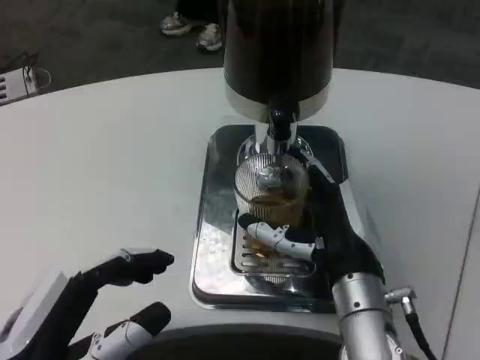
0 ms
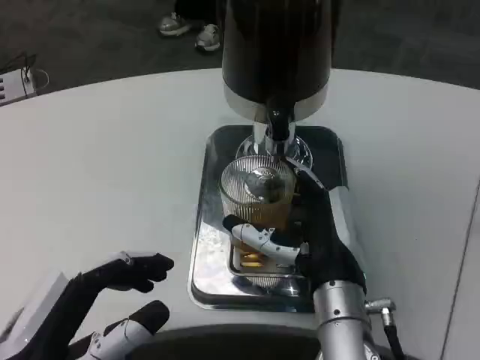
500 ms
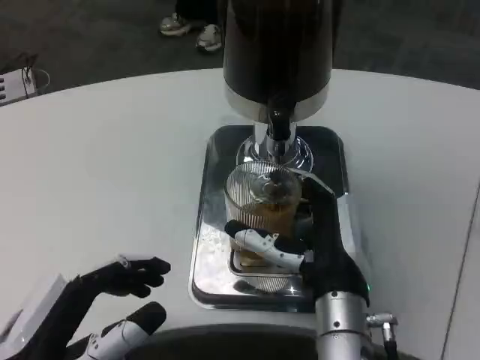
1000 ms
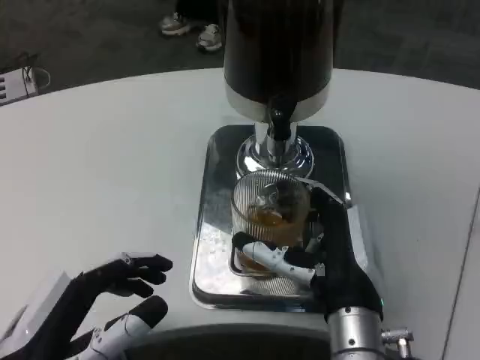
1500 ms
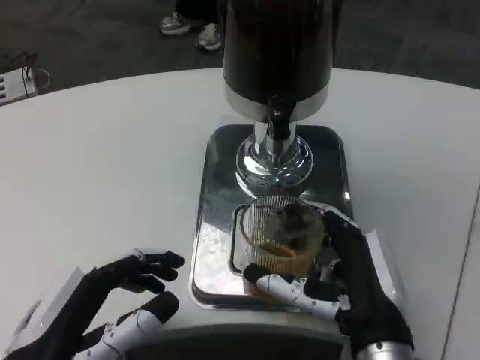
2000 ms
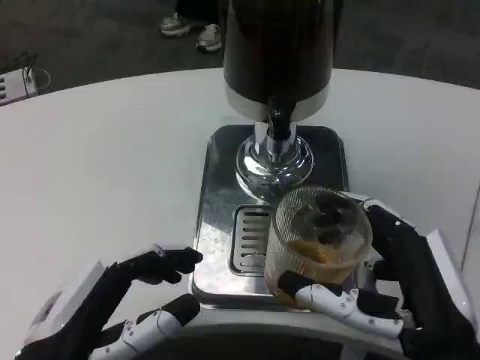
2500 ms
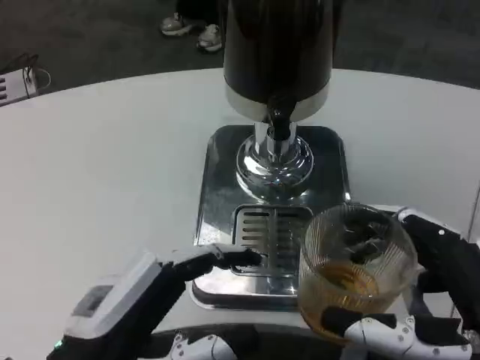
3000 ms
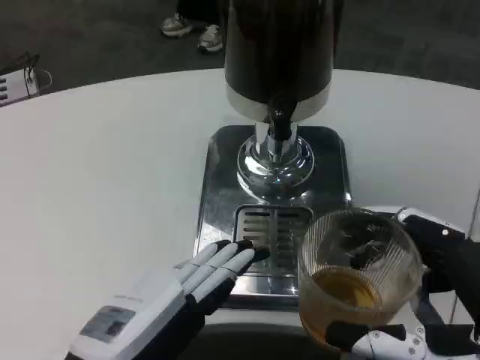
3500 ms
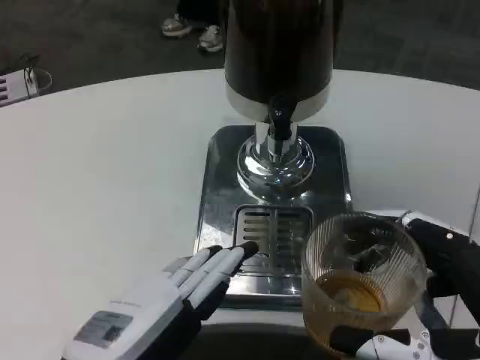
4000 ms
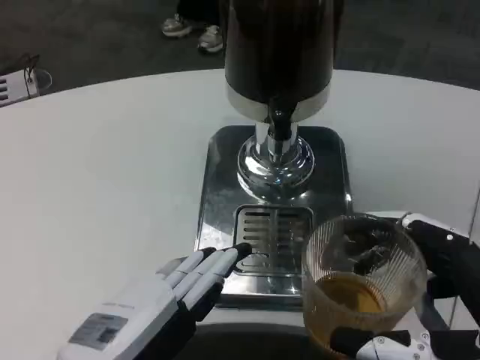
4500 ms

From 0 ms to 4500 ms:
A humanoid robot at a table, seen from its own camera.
Task of the whole recording: Grasp the cup under the faucet to collect the drink, then remove the cup.
From 0 ms to 2000 ms: The right hand heads backward, covering approximately 5 cm.
From 2000 ms to 4500 ms: The right hand travels to the right, backward and upward by roughly 15 cm; the left hand changes place by some 5 cm.

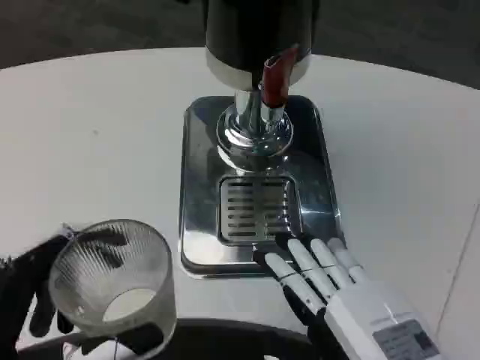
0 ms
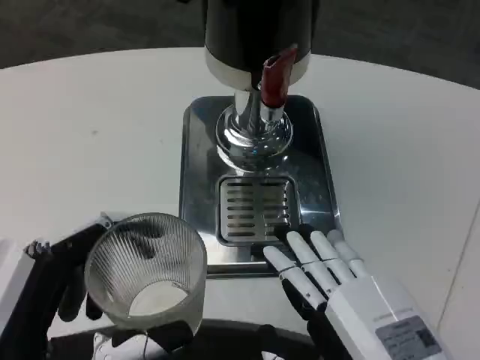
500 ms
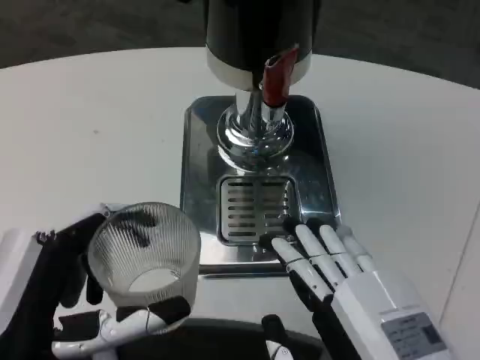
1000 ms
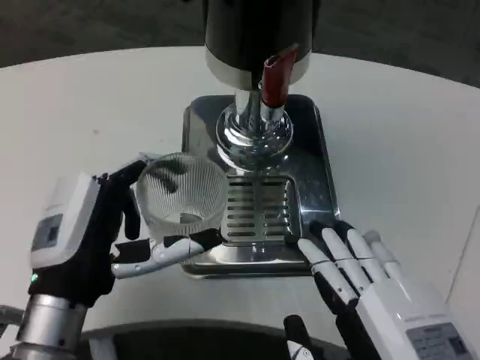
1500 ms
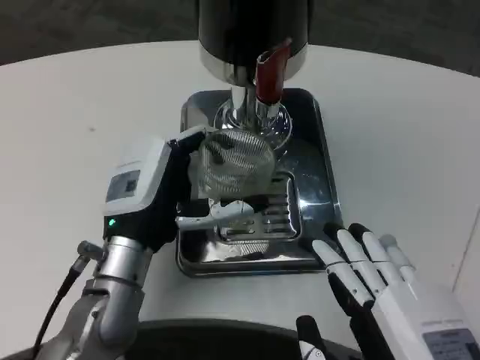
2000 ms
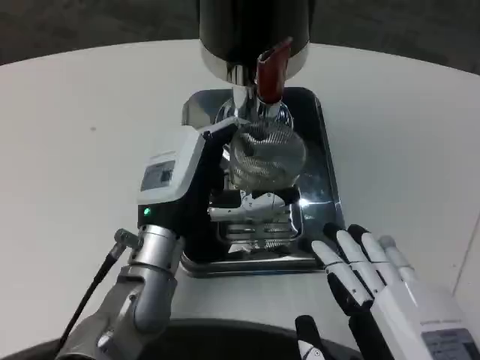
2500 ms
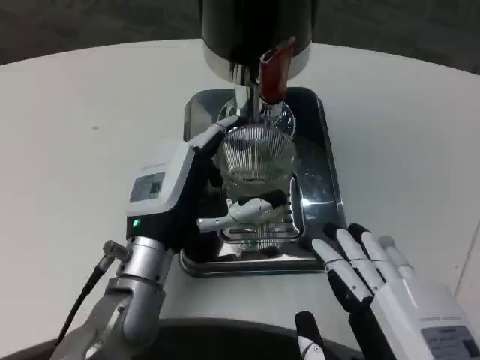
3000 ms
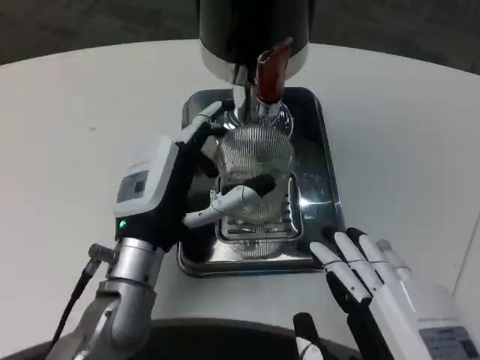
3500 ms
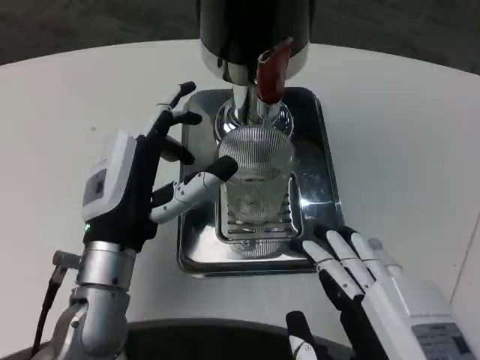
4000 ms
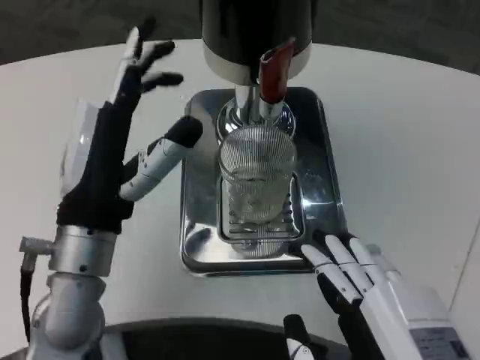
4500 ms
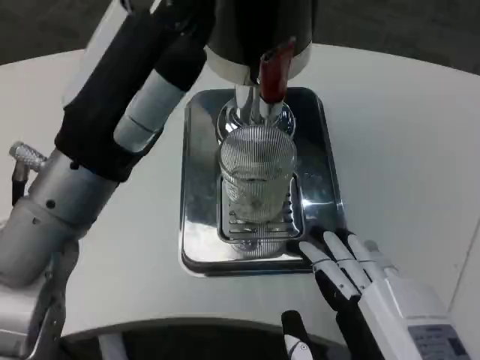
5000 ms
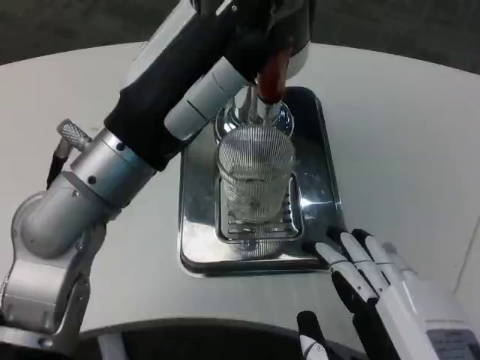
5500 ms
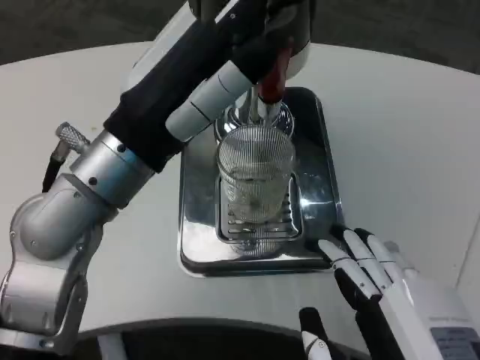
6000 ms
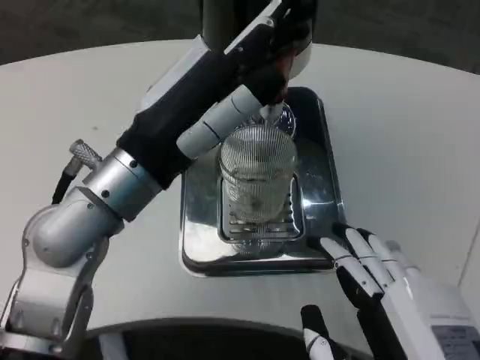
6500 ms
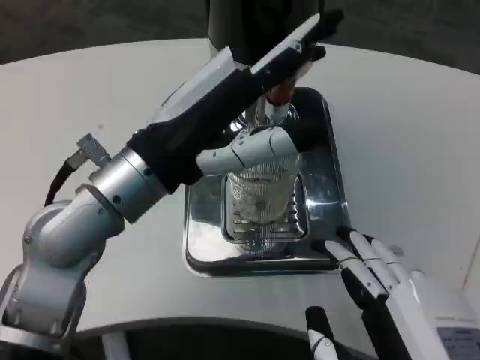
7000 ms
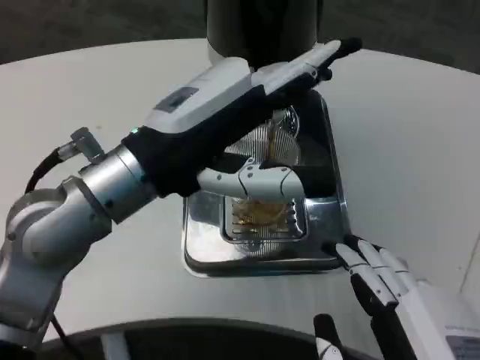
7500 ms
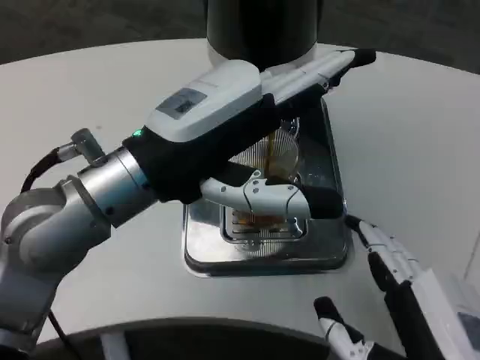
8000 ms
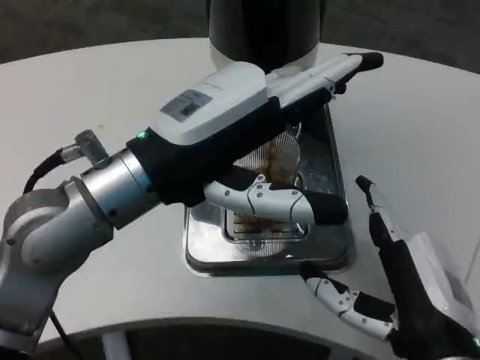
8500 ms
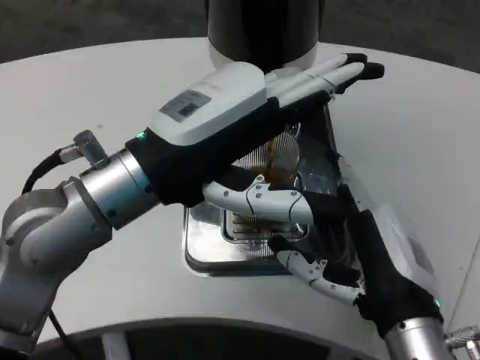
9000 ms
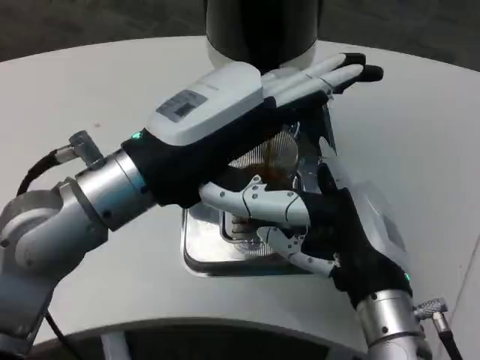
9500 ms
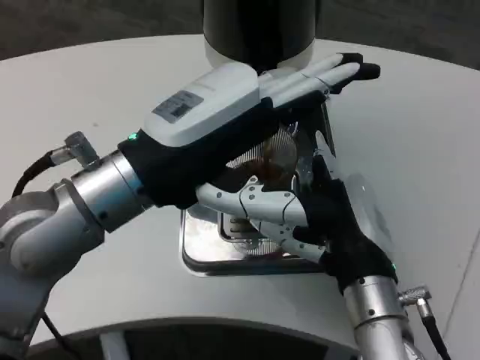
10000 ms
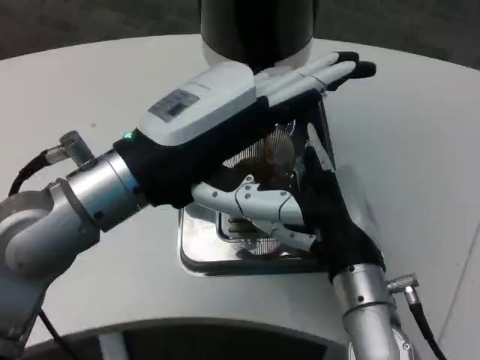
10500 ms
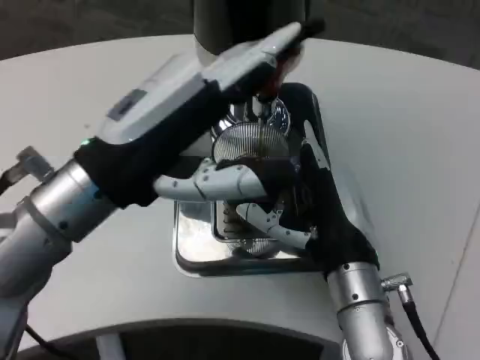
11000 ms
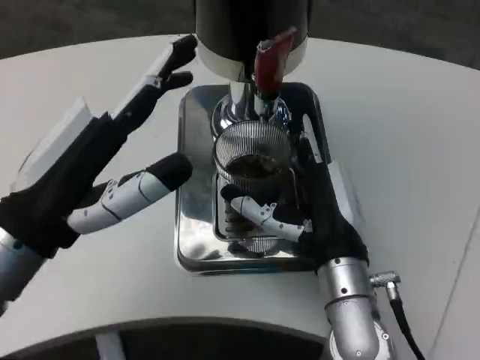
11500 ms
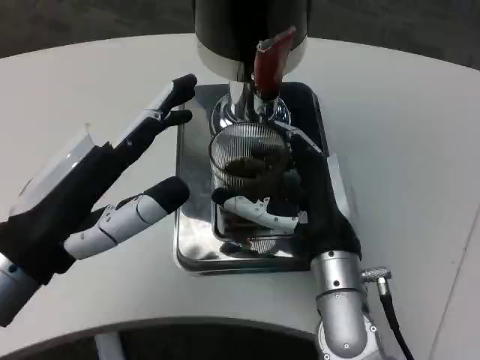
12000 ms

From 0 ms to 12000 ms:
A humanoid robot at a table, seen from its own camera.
Task of the whole recording: Grasp the cup under the faucet to collect the drink, then remove the cup.
From 0 ms to 2000 ms: The left hand heads forward and to the right, covering approximately 20 cm.
From 4000 ms to 6000 ms: The left hand shifts about 15 cm upward.
From 8000 ms to 10000 ms: The right hand goes about 15 cm forward.
From 10000 ms to 12000 ms: The left hand is displaced to the left, downward and backward by some 10 cm.

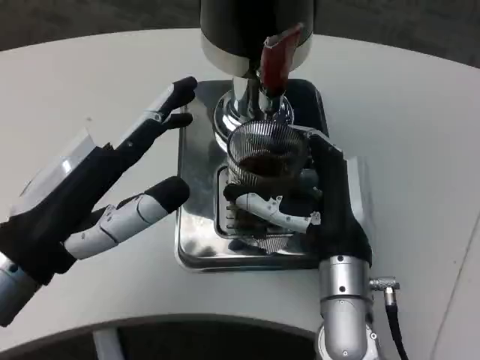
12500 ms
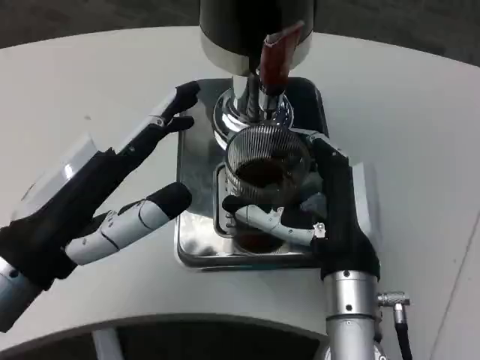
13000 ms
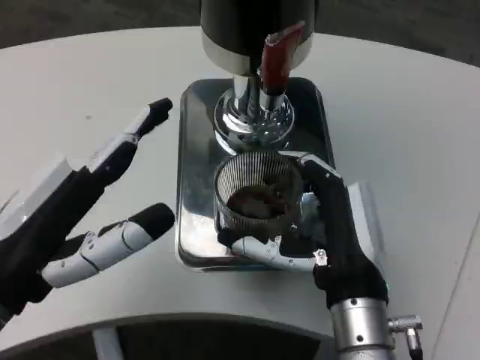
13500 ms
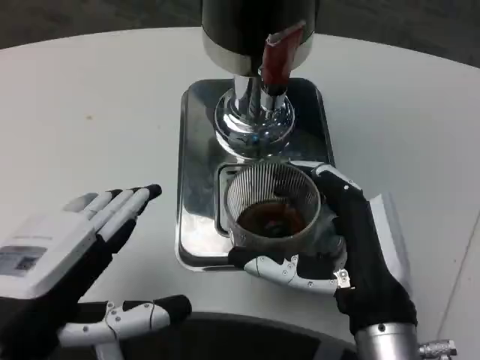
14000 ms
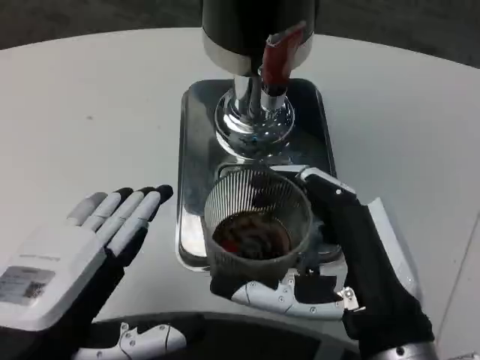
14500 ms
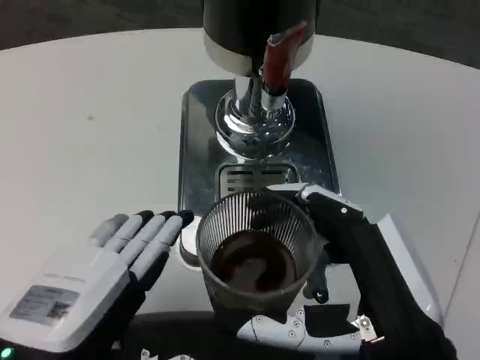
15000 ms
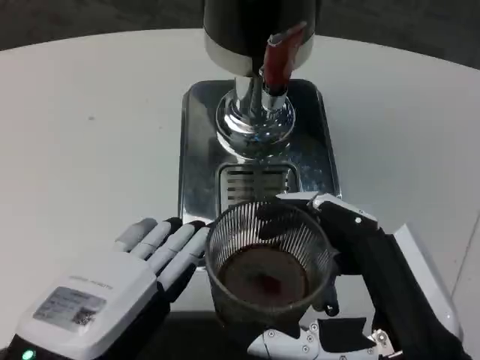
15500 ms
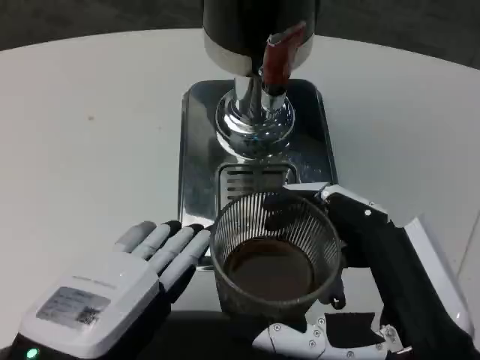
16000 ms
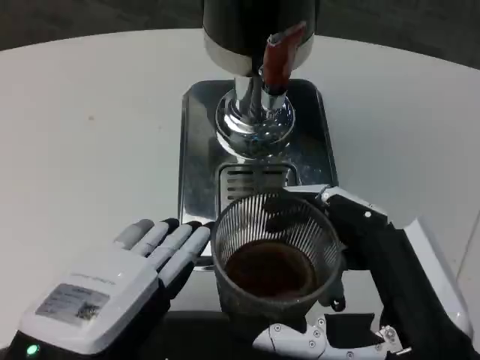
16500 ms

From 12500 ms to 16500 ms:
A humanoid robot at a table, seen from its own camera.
Task of the whole recording: Grasp the cup under the faucet to collect the drink, then remove the cup.
From 12500 ms to 14500 ms: The right hand is displaced backward by roughly 10 cm. Meanwhile the left hand moves backward, approximately 10 cm.

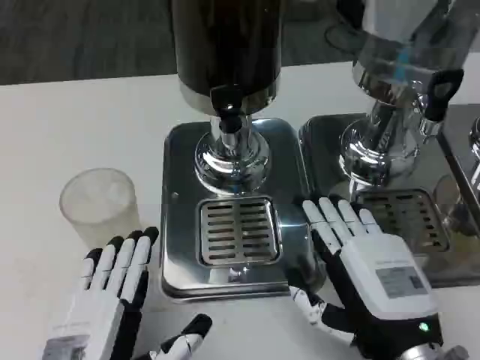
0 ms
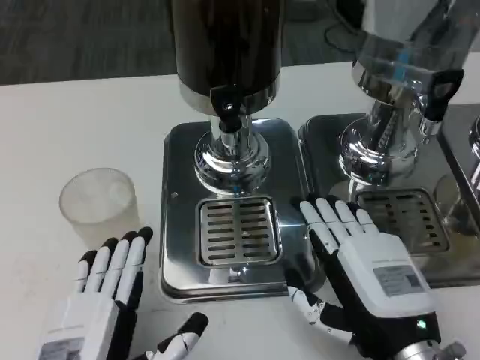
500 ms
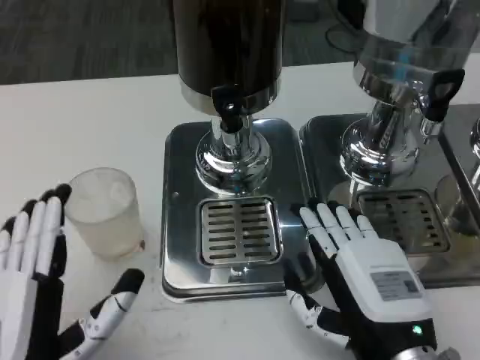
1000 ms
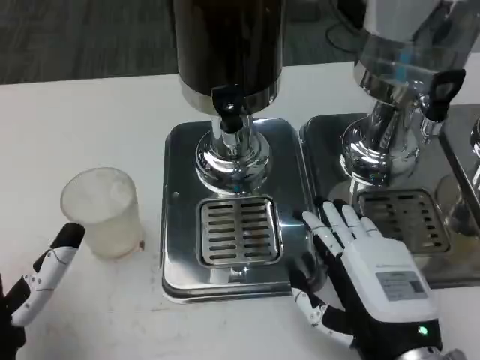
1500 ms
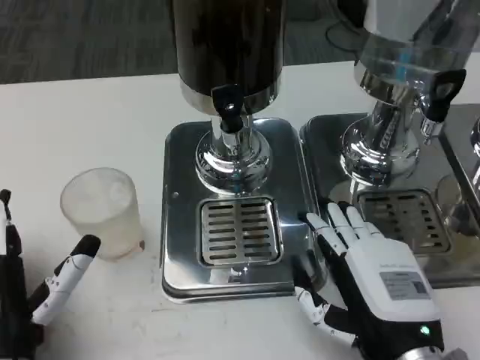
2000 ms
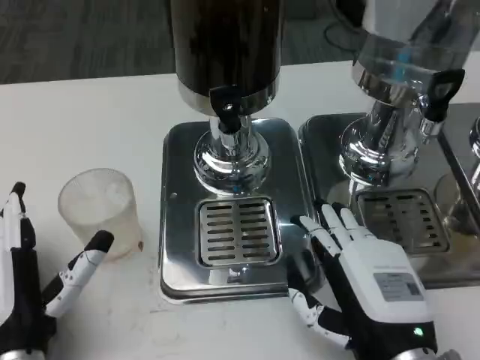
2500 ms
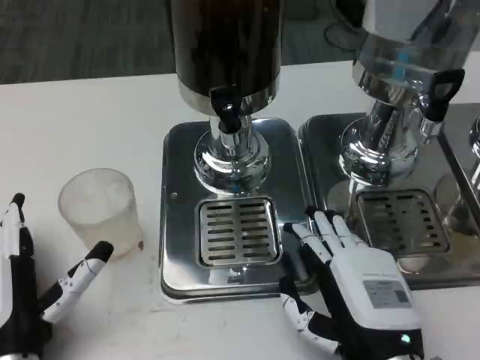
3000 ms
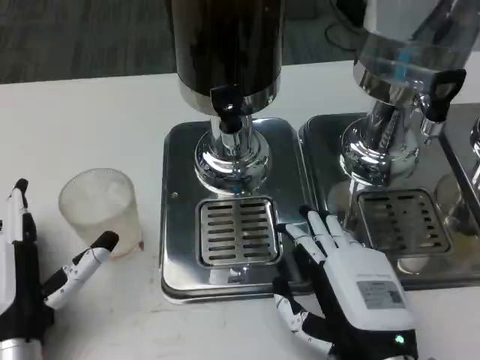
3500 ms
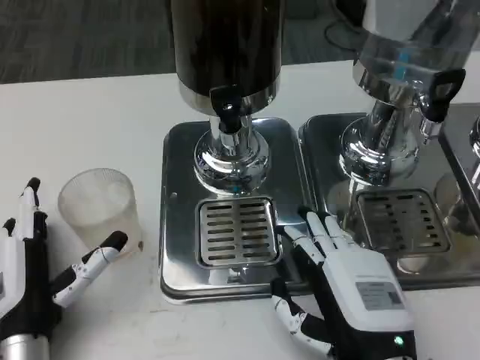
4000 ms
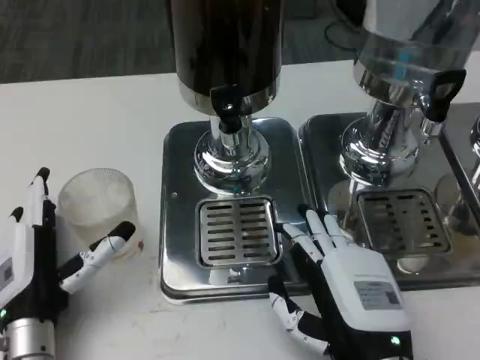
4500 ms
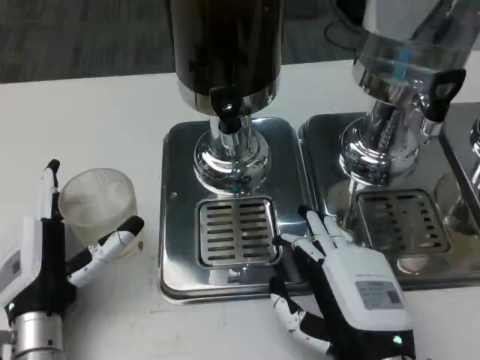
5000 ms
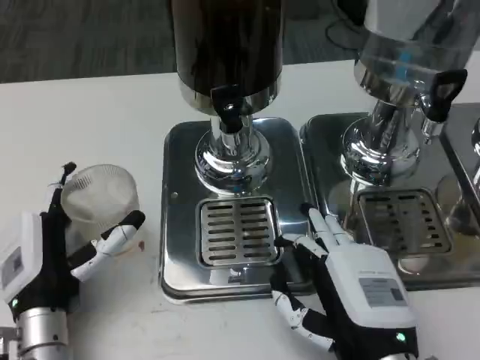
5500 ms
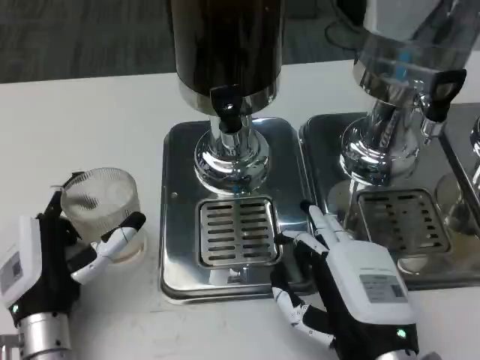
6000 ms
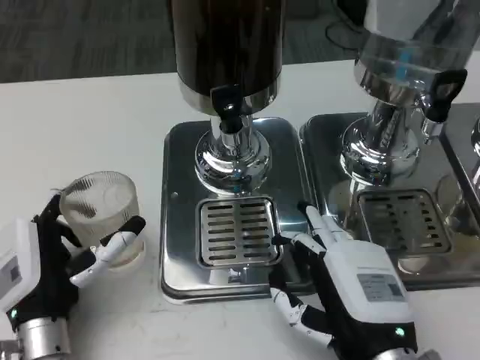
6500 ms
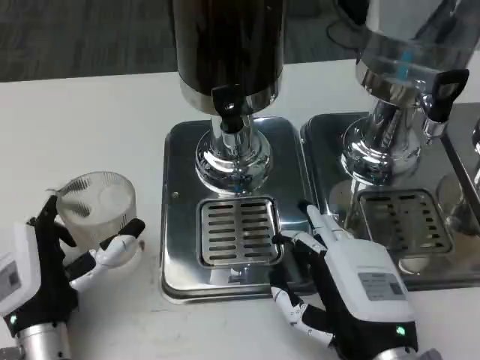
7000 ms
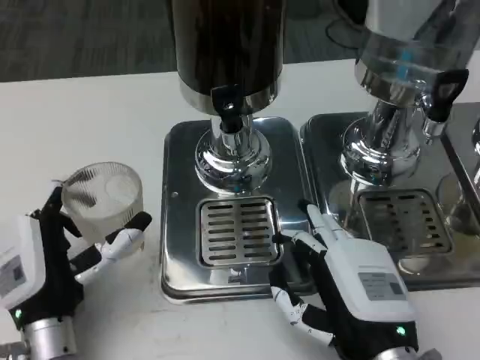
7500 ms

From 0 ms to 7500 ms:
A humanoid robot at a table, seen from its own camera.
Task of the whole recording: Grasp the cup under the faucet to collect the drink, then remove the cup.
From 0 ms to 2000 ms: The left hand travels forward by some 5 cm.
From 4000 ms to 7500 ms: The hands move only a little.
